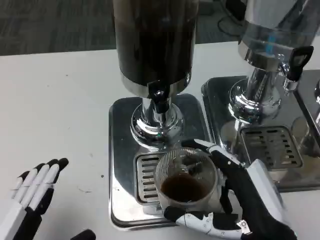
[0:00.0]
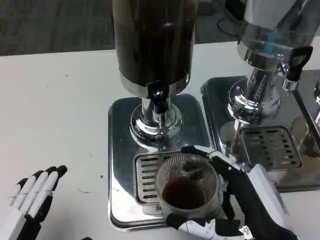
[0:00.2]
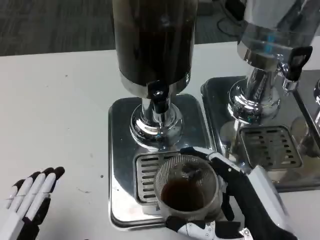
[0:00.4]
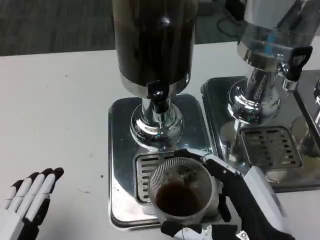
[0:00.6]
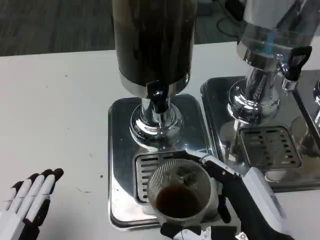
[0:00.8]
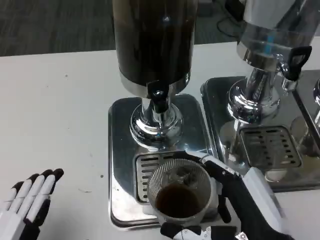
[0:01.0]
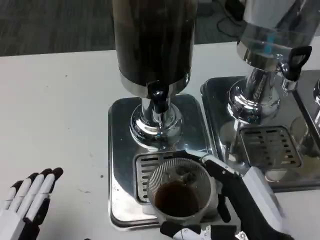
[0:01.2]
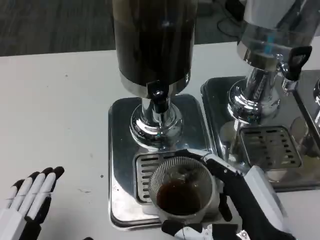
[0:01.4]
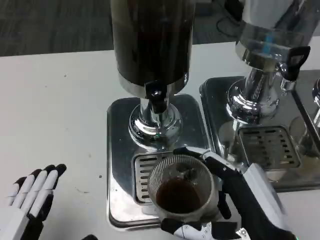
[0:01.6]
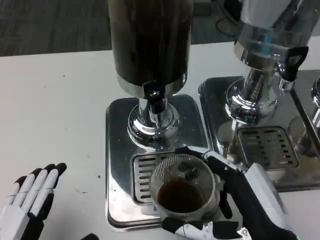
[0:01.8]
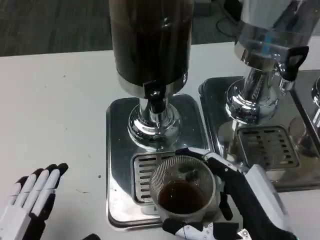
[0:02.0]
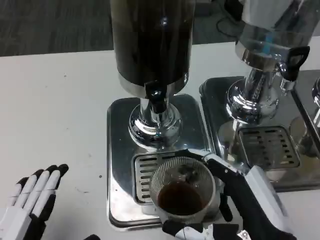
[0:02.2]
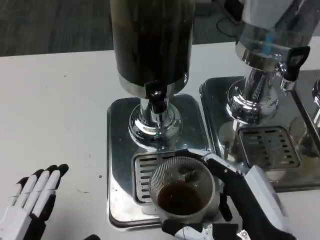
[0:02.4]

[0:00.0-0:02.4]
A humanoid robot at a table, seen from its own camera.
Task of the whole recording: Grasp the cup under the faucet to collect the drink, then remove the cup.
0:00.0 to 0:01.2: The hands stay close to where they were, moving slightly.
0:01.2 to 0:02.4: Both hands stay about where they are.

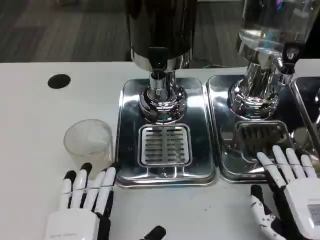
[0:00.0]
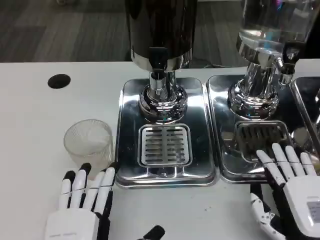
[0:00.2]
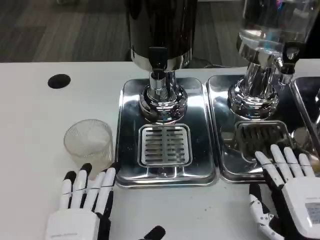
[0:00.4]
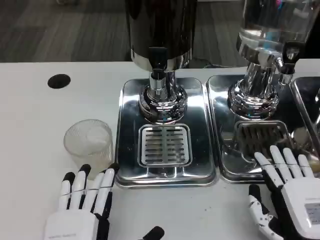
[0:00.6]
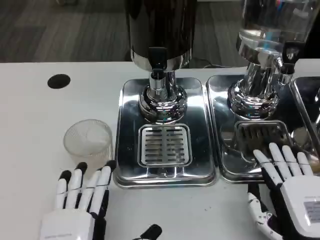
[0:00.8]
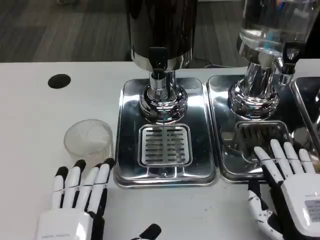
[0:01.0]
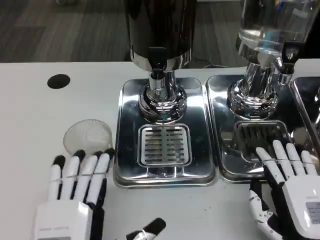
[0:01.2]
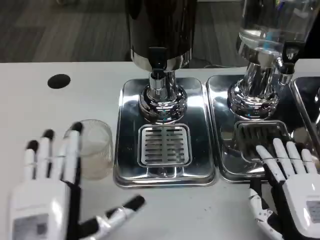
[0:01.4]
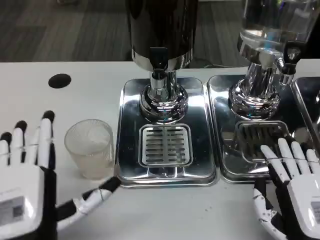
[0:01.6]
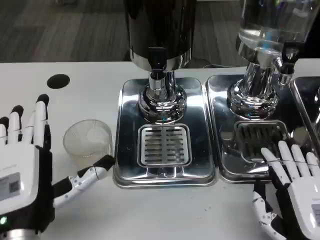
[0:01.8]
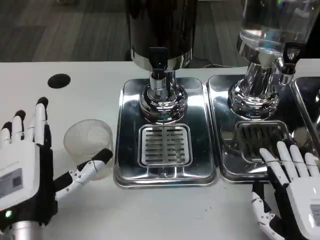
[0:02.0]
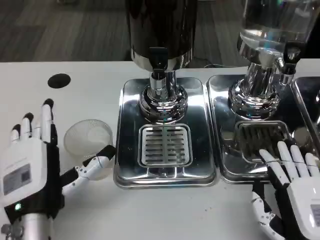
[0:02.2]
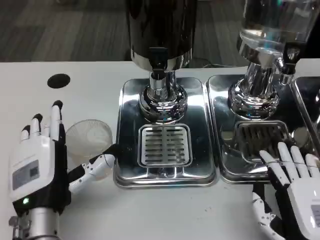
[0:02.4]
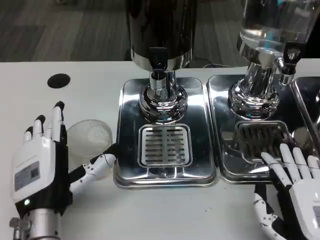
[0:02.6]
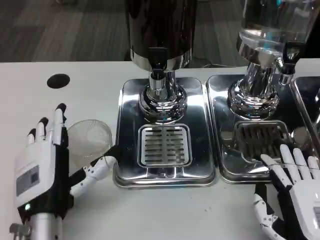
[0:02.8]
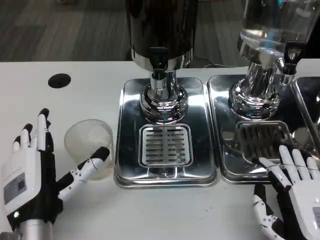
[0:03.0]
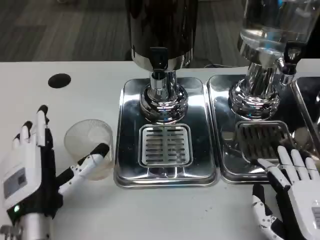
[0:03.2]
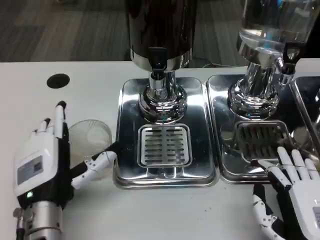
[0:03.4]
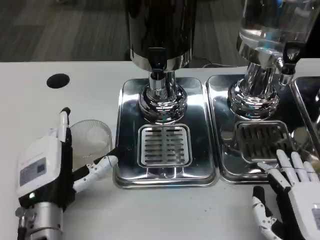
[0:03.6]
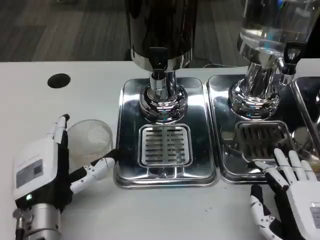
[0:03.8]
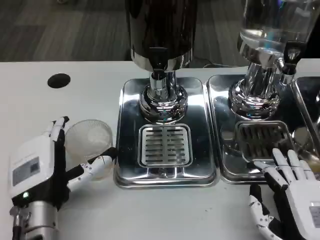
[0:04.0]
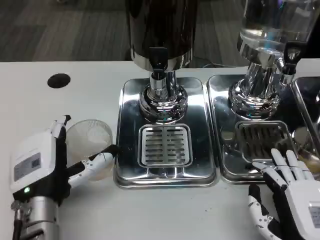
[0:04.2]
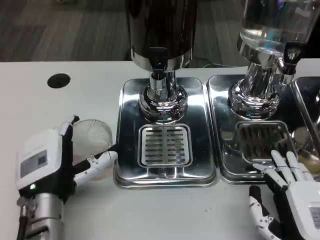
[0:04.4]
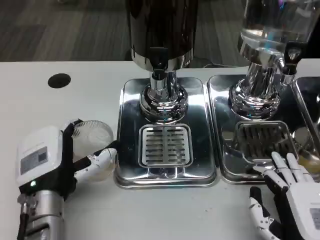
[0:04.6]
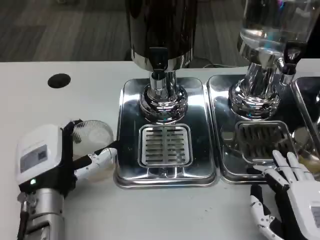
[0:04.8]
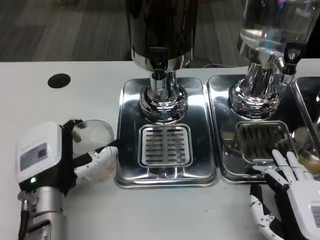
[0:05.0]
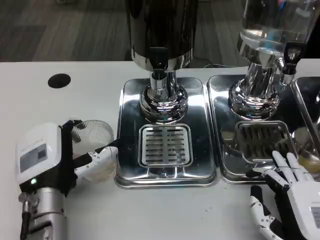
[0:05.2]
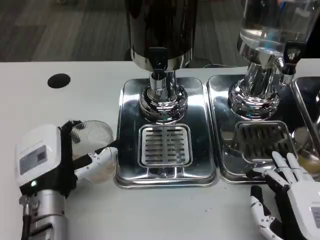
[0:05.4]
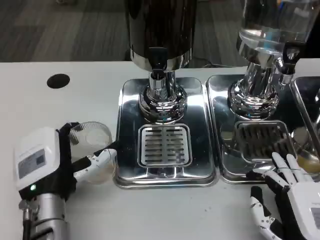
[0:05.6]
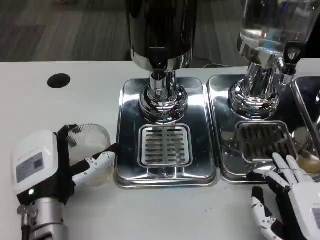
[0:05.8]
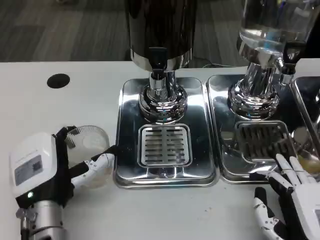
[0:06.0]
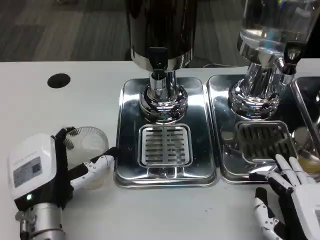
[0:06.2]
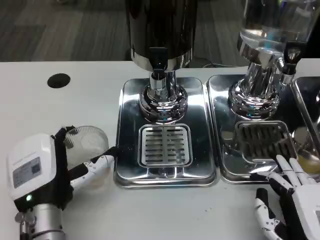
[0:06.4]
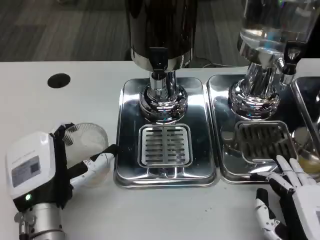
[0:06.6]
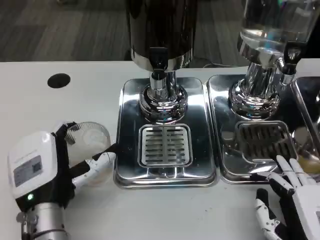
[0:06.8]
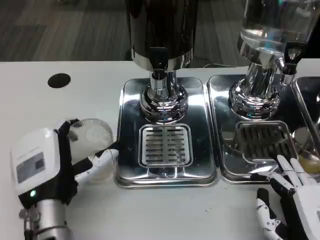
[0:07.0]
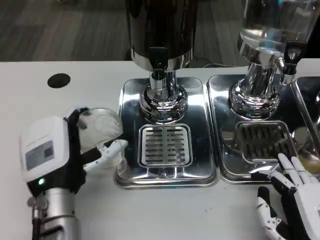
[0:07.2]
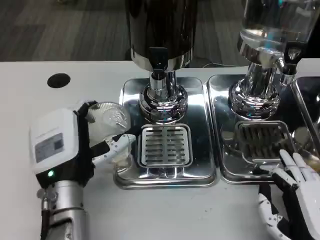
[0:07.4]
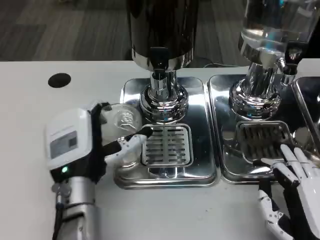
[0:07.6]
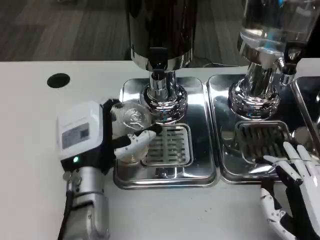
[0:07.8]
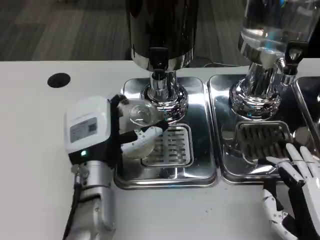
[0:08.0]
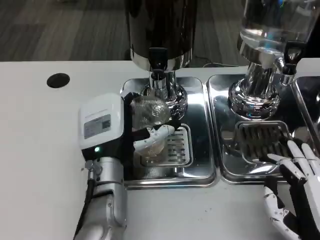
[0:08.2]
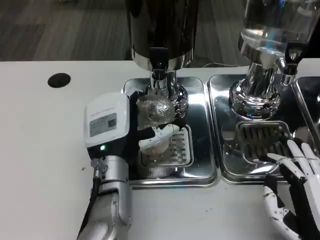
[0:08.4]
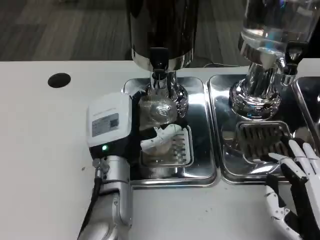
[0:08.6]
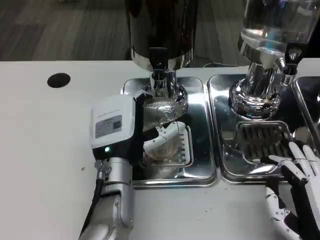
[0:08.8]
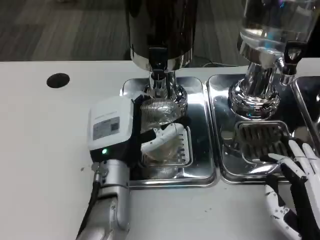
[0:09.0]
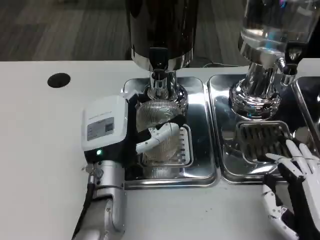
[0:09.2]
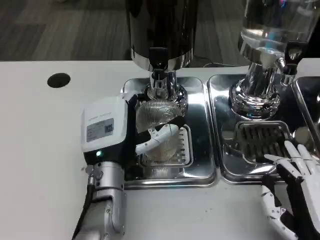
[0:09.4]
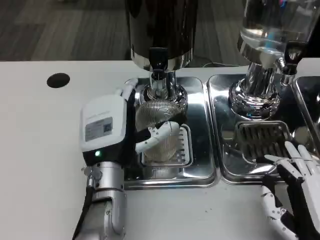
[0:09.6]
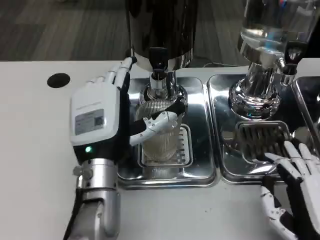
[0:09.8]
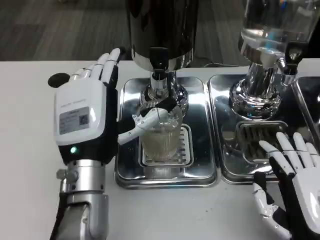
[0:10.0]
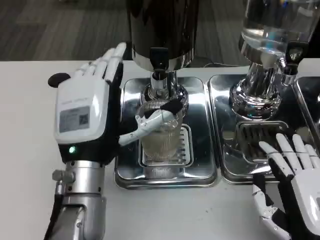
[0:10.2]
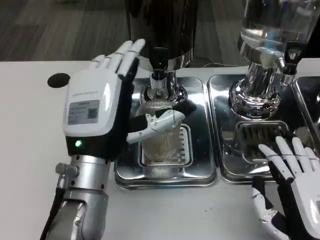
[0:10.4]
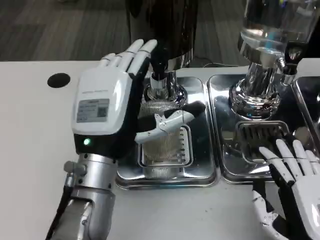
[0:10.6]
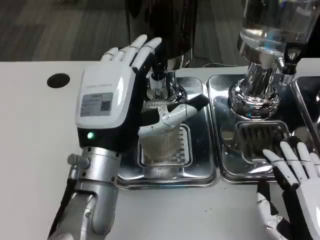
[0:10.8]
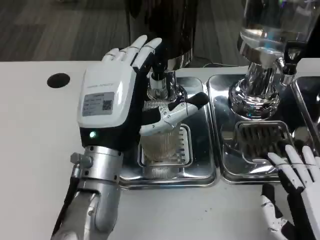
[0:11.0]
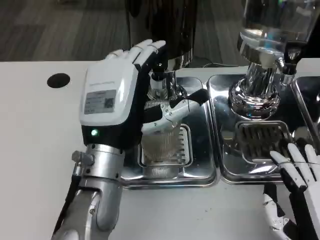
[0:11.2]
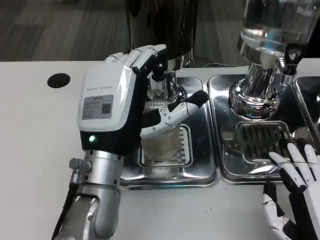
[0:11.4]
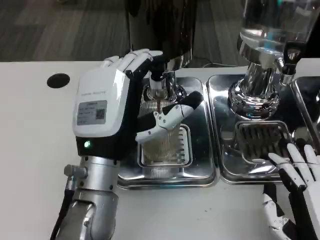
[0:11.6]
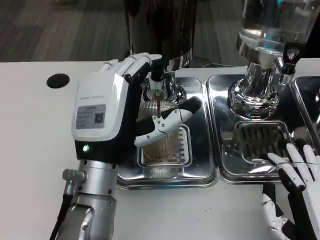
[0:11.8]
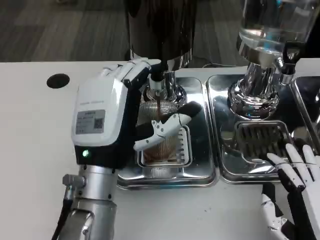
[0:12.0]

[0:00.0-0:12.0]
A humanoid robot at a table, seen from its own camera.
Task of the whole recording: Grasp the cup under the faucet to collect the drink, then remove the cup.
0:00.0 to 0:01.6: The left hand changes place by approximately 10 cm.
0:01.6 to 0:03.0: The left hand goes some 5 cm forward.
0:03.0 to 0:06.0: The hands make only small movements.
0:06.0 to 0:07.6: The left hand moves approximately 5 cm.
0:09.0 to 0:10.4: The left hand heads upward, covering some 5 cm.

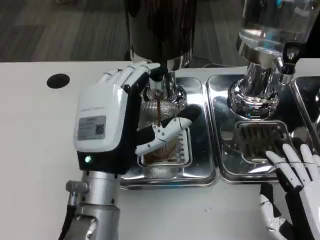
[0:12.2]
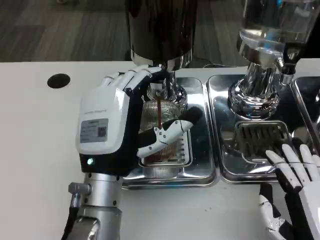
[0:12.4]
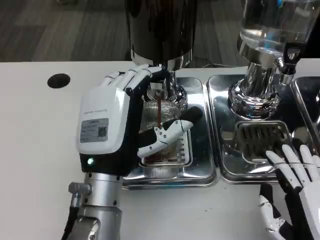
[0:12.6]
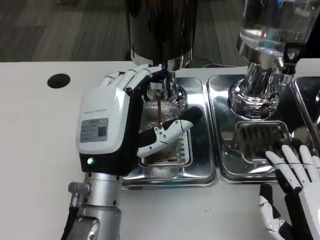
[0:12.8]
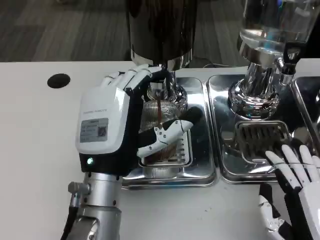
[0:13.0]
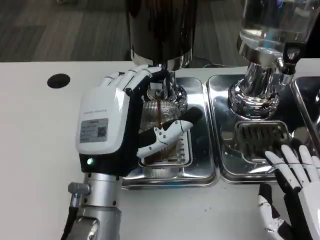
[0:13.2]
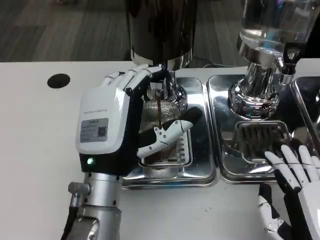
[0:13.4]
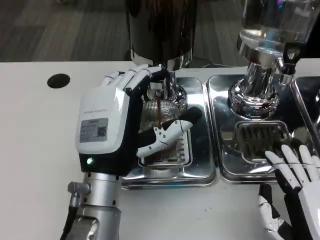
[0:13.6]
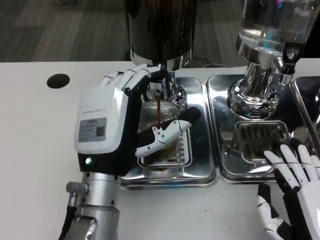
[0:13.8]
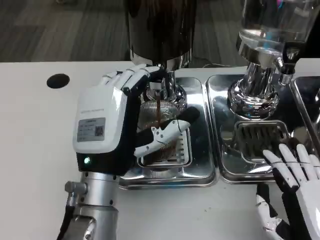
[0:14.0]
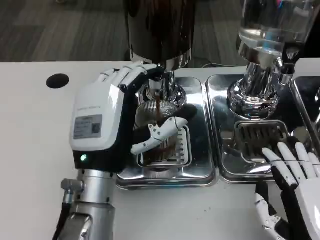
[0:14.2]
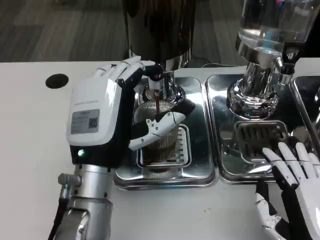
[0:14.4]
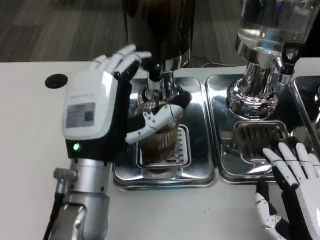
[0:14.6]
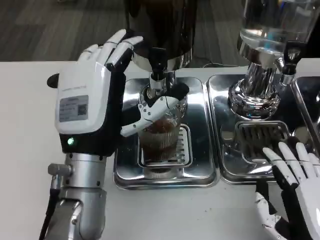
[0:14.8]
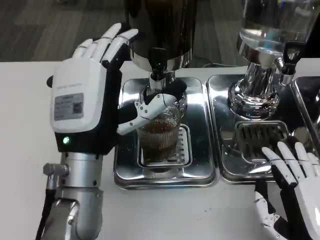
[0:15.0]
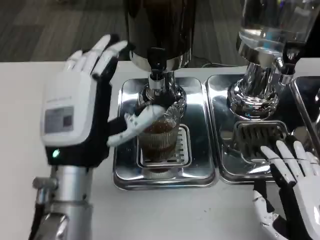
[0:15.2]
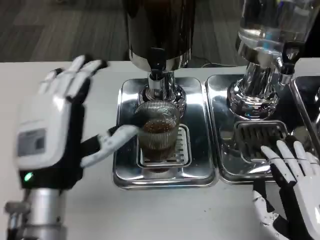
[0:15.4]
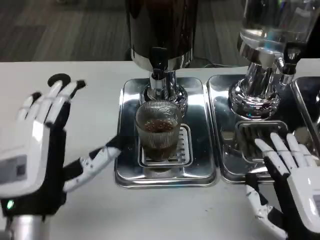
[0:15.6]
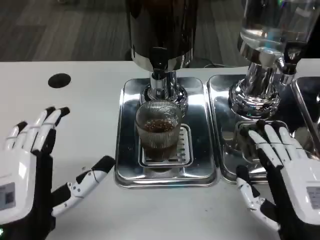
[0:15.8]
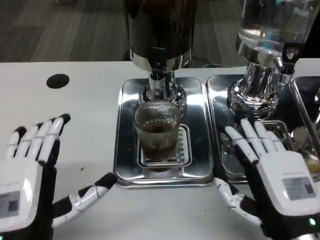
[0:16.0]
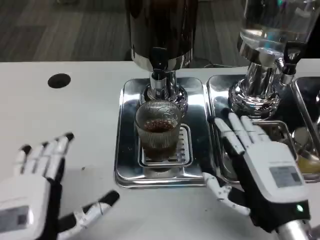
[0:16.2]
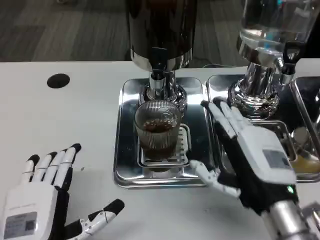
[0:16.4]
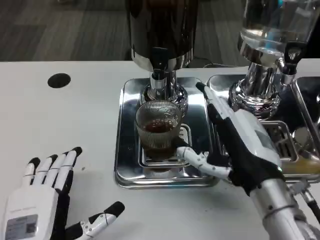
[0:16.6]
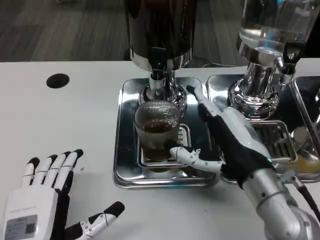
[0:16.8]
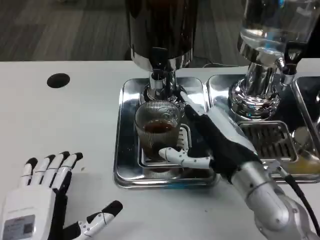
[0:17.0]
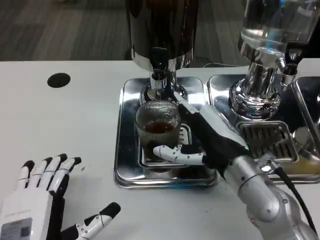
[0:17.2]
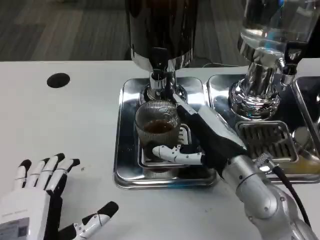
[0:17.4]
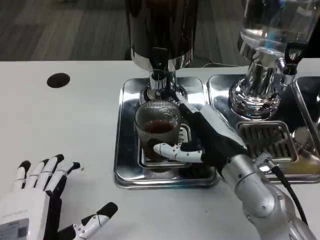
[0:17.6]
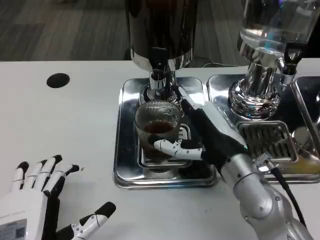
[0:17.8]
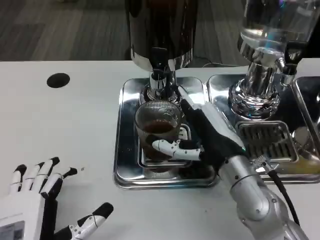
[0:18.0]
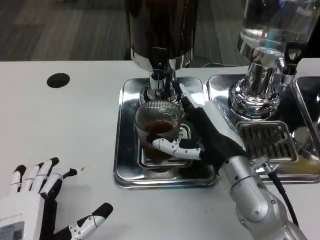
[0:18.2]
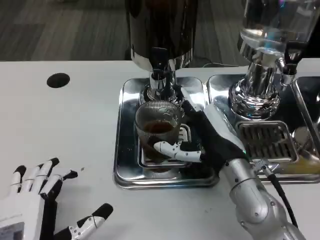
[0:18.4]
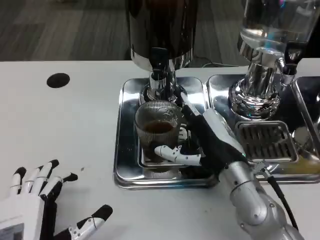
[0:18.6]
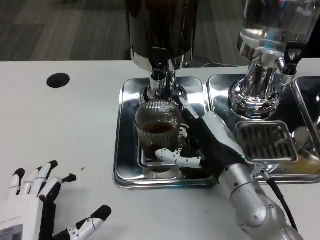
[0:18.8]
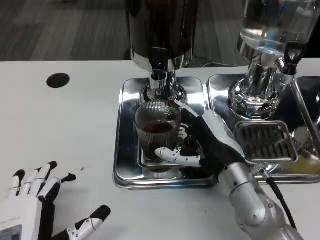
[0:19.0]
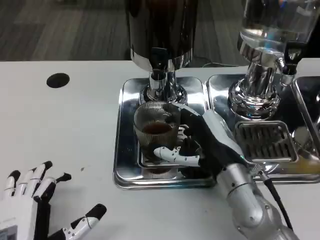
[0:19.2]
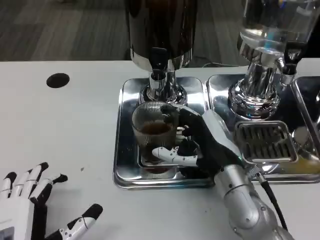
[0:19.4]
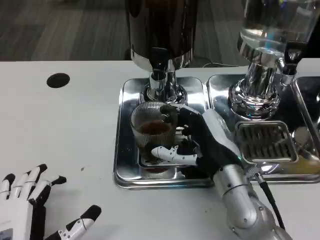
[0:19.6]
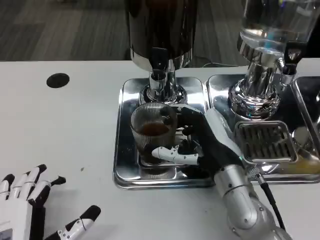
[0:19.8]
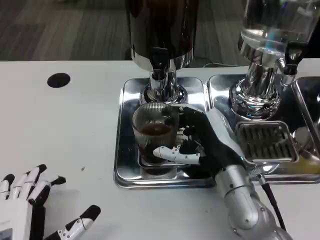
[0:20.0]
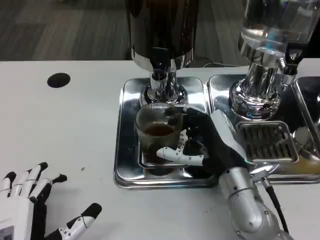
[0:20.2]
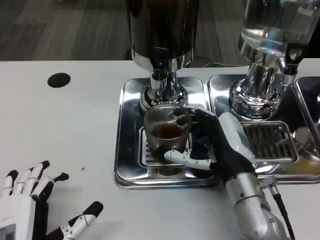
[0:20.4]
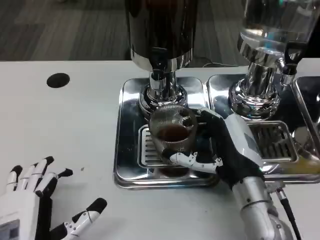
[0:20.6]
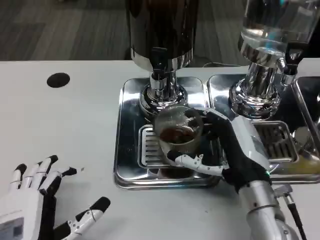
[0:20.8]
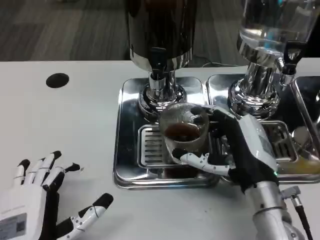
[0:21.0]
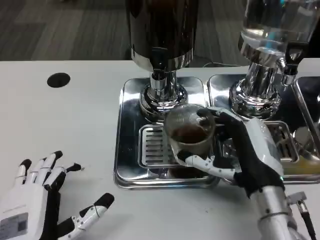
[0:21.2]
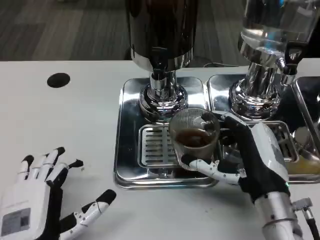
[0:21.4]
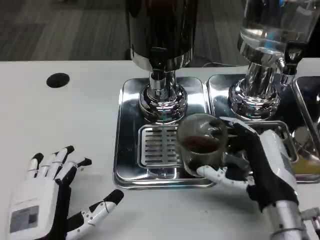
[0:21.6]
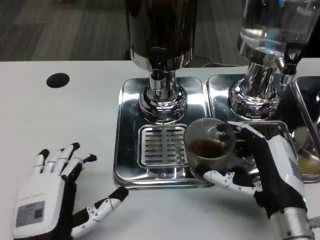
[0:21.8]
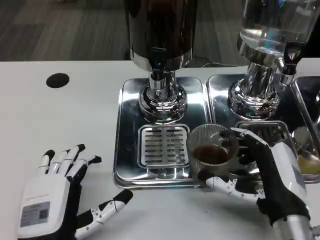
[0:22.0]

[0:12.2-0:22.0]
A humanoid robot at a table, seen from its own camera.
Task of the whole recording: Grasp the cup under the faucet to collect the drink, then remove the cup.
0:12.2 to 0:13.6: The two hands keep their place.
0:15.0 to 0:16.4: The right hand is displaced forward by approximately 5 cm, while the left hand goes some 15 cm backward, downward and to the left.
0:16.4 to 0:17.8: The right hand is displaced forward by some 5 cm.
0:17.8 to 0:20.6: There are only small adjustments of the hands.
0:20.6 to 0:22.0: The right hand travels backward by about 5 cm.
